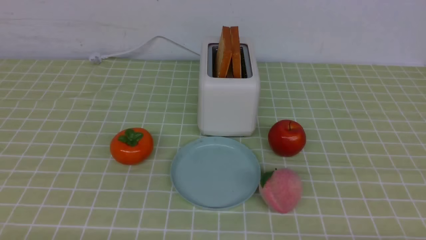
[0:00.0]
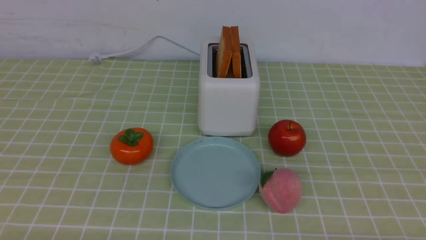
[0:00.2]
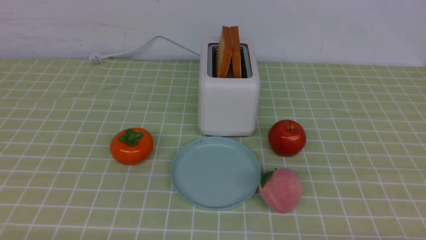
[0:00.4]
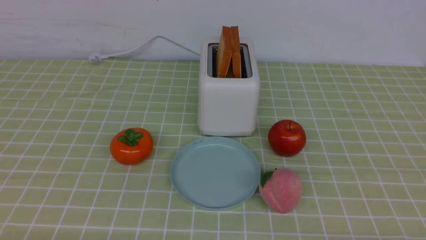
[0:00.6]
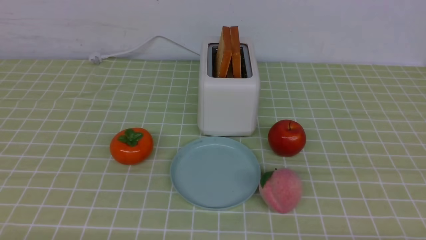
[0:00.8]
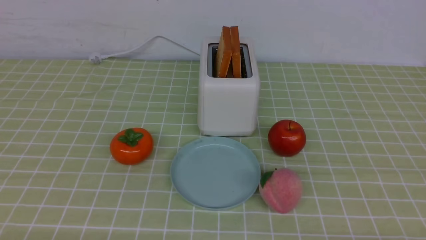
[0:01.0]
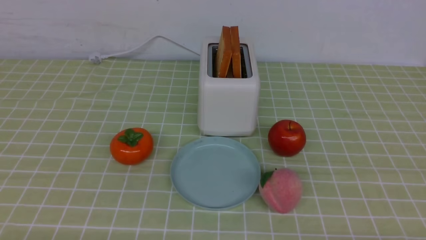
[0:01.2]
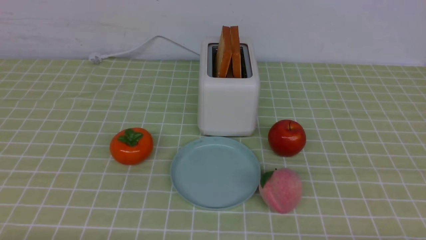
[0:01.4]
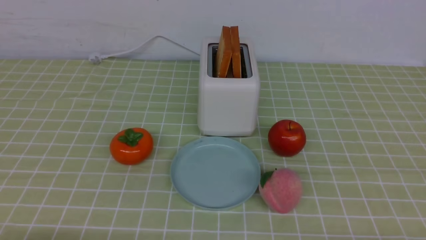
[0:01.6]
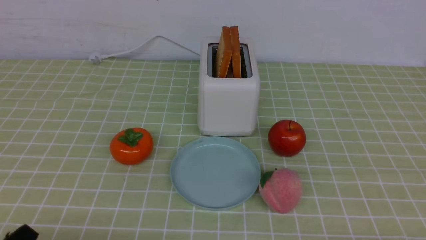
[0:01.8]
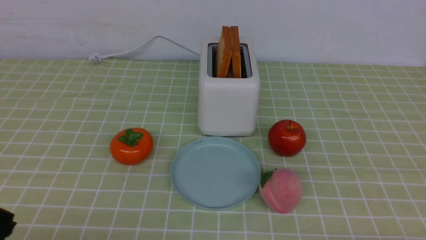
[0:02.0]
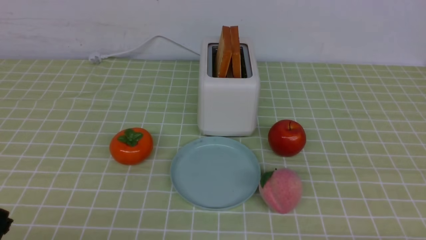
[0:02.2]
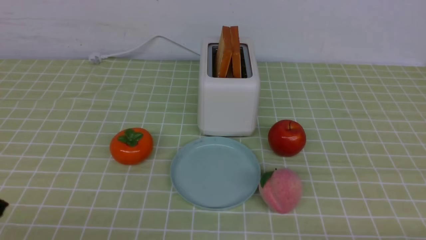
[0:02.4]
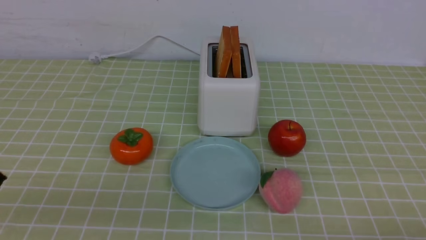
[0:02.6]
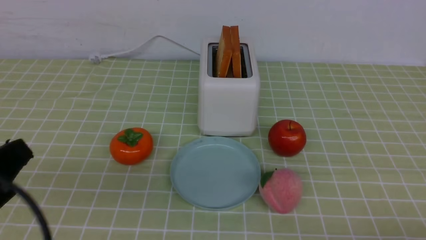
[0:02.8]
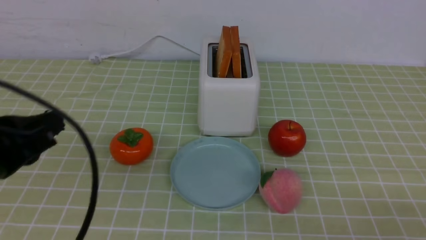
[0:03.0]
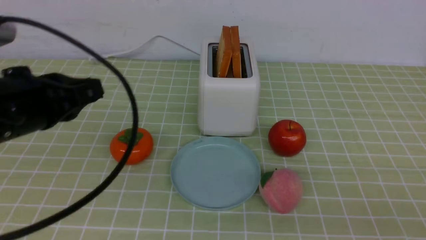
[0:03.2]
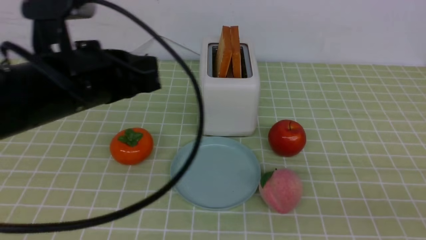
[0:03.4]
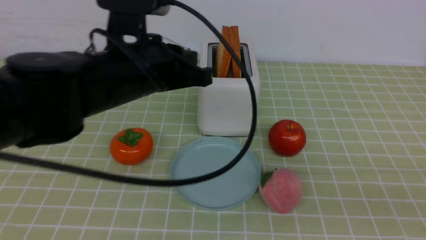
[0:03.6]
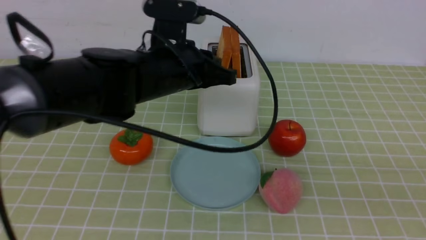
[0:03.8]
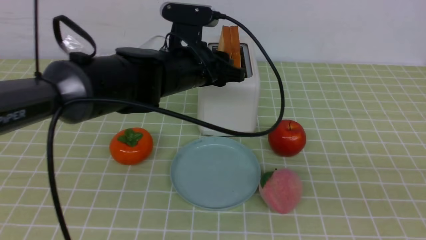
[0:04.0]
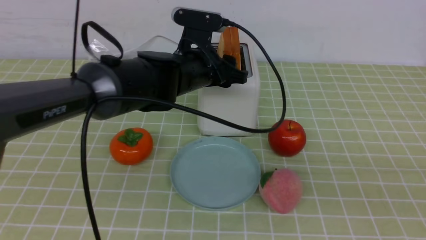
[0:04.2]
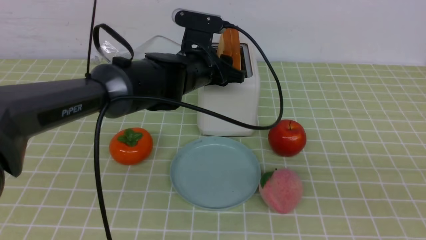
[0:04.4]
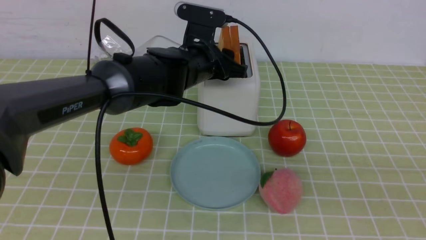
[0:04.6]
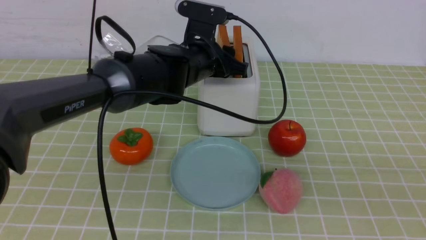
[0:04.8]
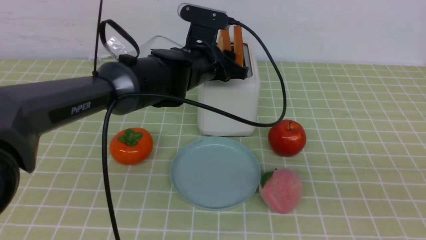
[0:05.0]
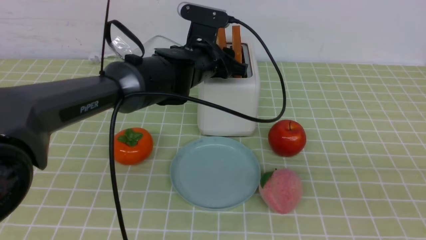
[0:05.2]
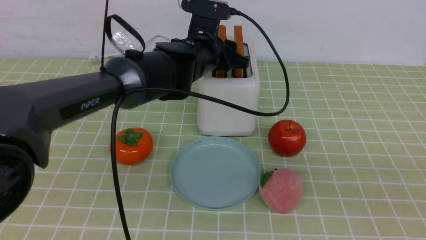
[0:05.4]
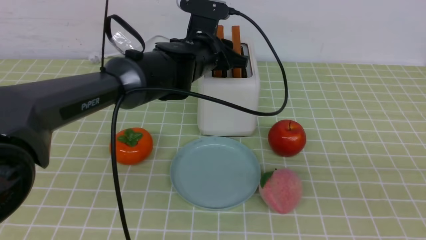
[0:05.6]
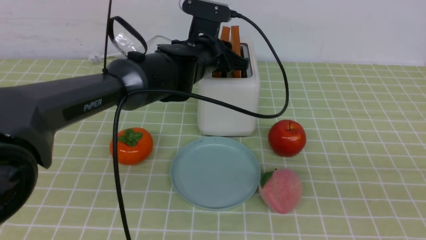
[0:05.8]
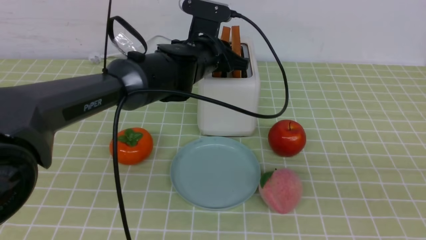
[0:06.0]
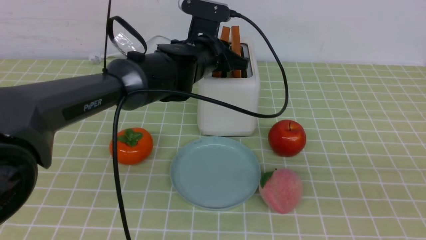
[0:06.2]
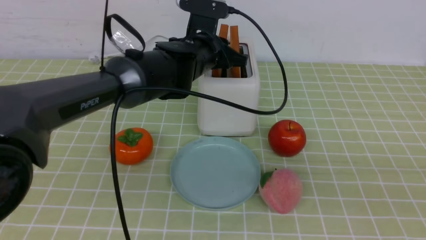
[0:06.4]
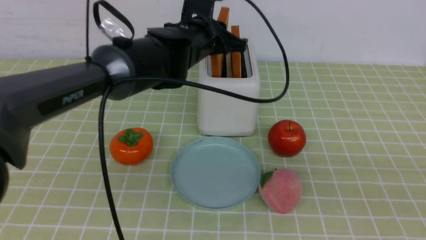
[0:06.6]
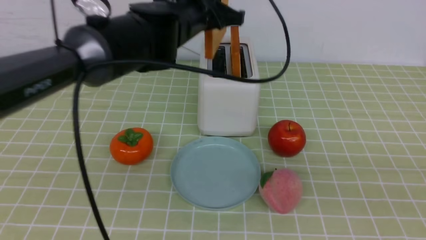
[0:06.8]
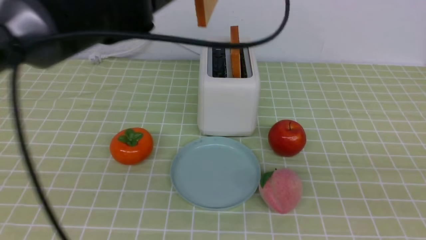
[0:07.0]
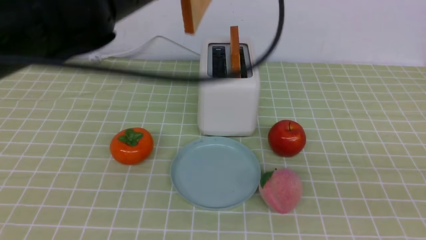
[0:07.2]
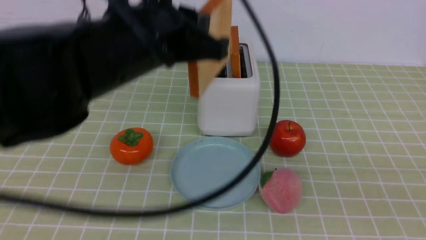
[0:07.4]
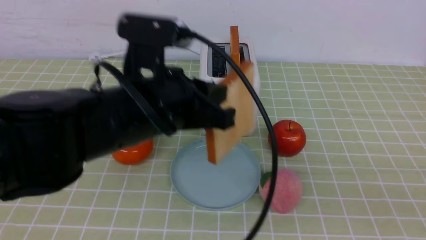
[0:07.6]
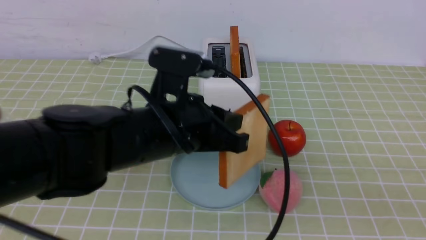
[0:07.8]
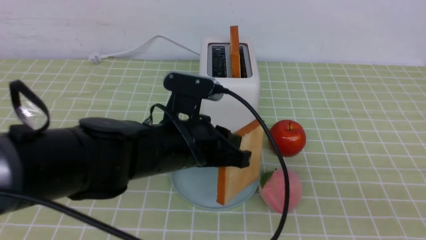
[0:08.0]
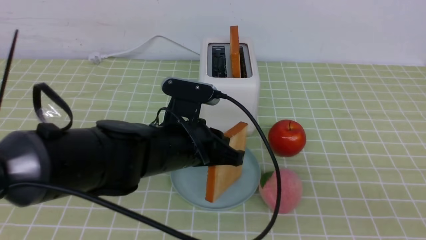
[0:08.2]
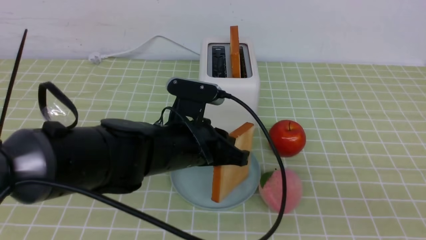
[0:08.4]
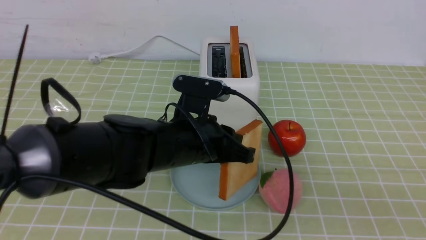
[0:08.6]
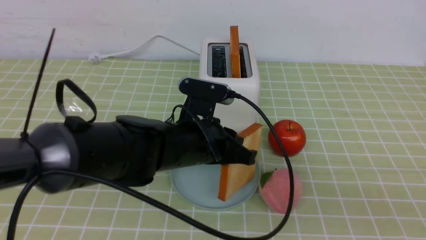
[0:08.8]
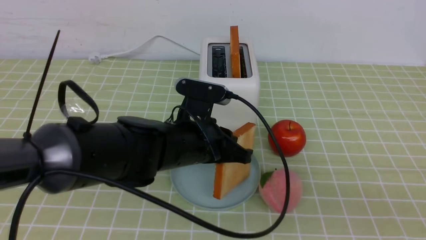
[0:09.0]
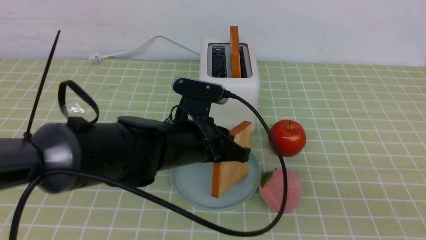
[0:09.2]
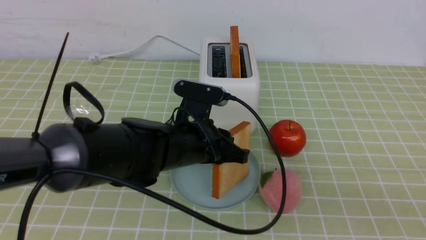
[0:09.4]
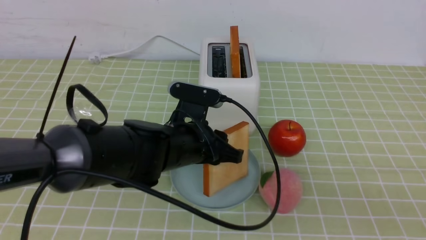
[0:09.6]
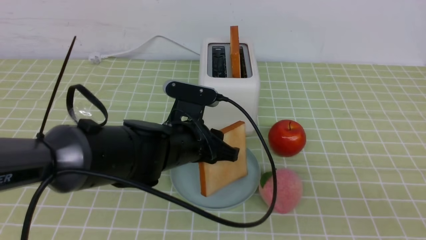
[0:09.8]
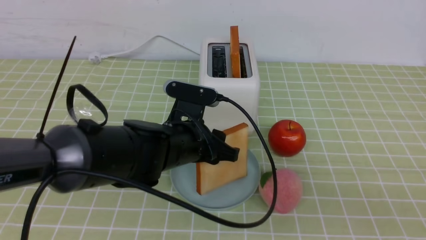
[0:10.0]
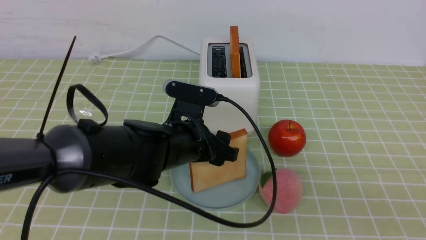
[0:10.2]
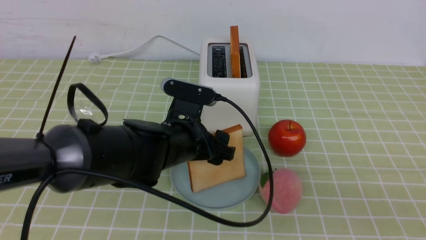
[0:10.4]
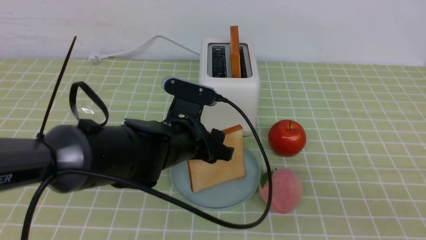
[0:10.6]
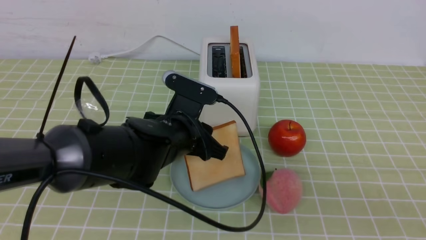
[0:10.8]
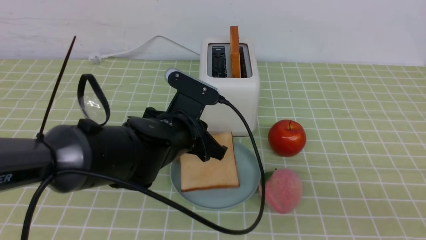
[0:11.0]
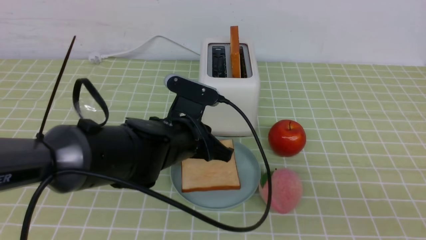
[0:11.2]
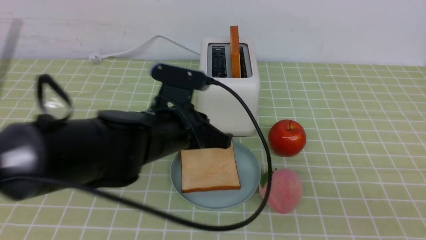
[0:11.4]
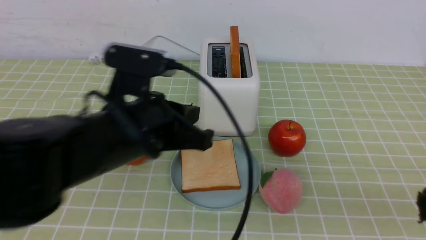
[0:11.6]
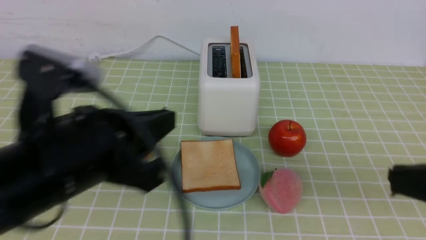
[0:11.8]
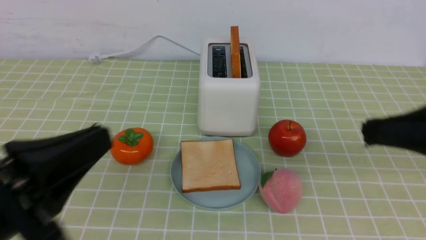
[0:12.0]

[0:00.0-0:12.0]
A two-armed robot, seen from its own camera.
Task of the whole recording: take toasted bread from bread machine on green coffee tablecloth place on plate.
Step, 0:00.0 to 0:07.0: use the left arm to take out a slice of bread.
Step, 0:07.2 to 0:11.6: use the left arm to put a slice of bread into the empty plate.
0:01.6 to 0:03.0: The left gripper shifts approximately 20 cm upward and forward, and closes its fingers.
0:03.0 to 0:04.4: The right gripper moves upward, about 10 cm; the left gripper goes roughly 30 cm forward and to the right, and opens up.
0:04.4 to 0:06.0: The left gripper closes its fingers.
0:06.0 to 0:07.6: The left gripper shifts roughly 20 cm backward.
0:07.6 to 0:09.0: The left gripper travels downward by approximately 10 cm.
0:09.0 to 0:10.4: The left gripper opens its fingers.
0:10.4 to 0:12.0: The right gripper goes roughly 15 cm forward. The left gripper shifts about 25 cm backward, to the left and upward, and closes its fingers.

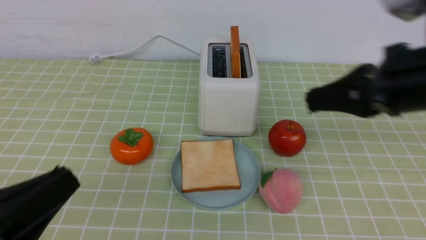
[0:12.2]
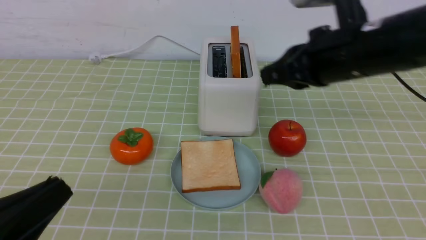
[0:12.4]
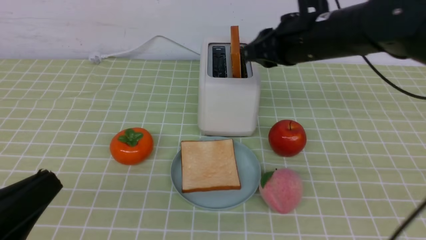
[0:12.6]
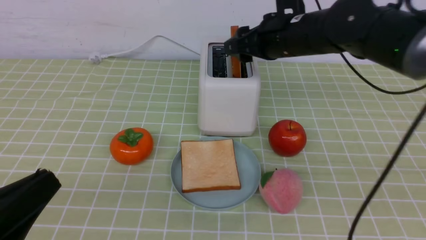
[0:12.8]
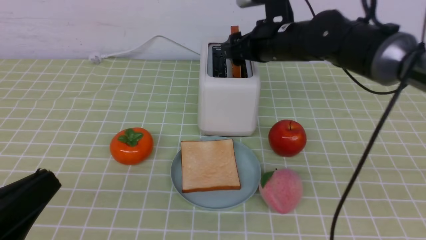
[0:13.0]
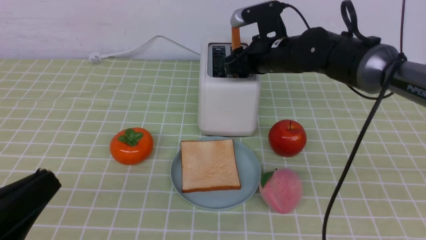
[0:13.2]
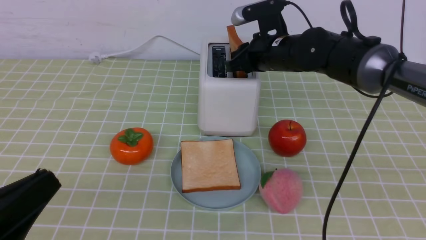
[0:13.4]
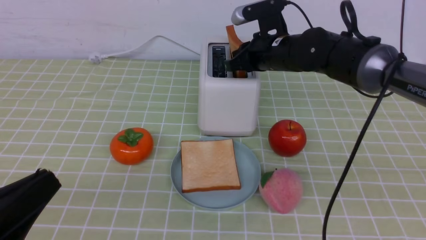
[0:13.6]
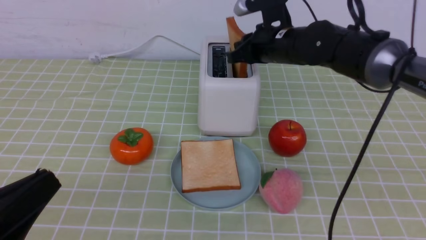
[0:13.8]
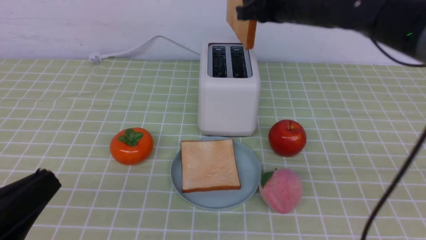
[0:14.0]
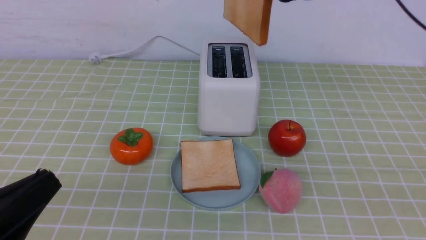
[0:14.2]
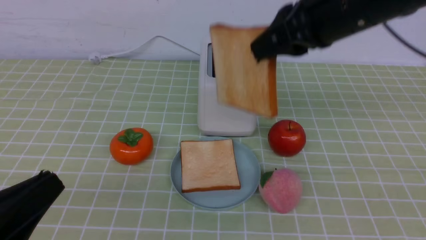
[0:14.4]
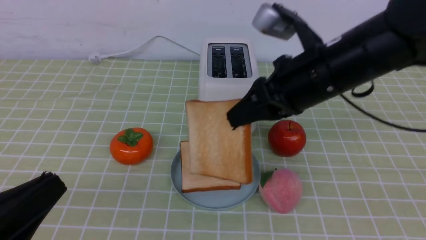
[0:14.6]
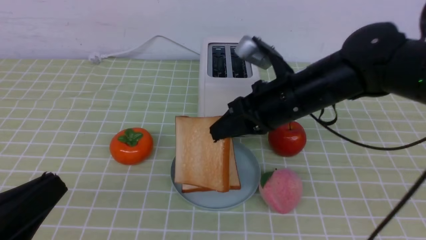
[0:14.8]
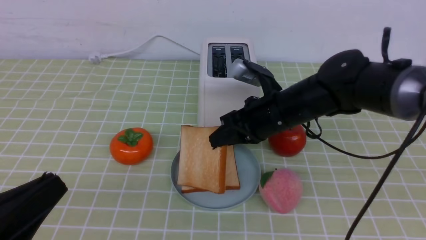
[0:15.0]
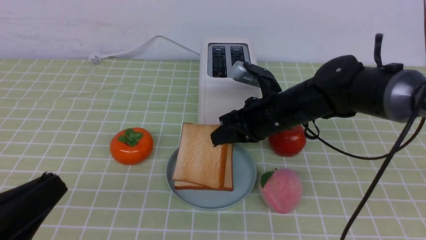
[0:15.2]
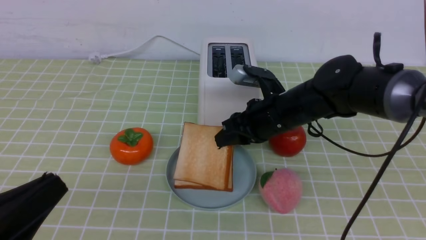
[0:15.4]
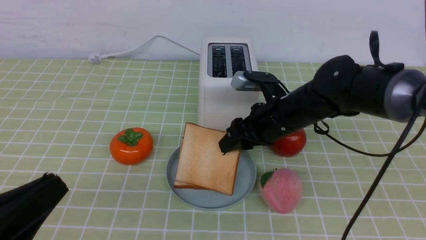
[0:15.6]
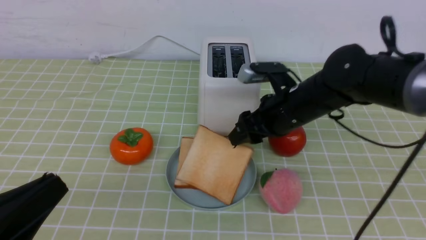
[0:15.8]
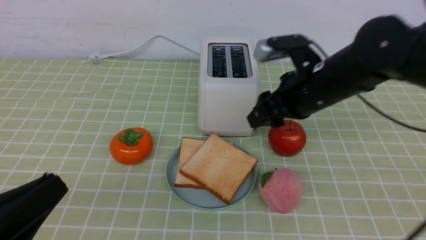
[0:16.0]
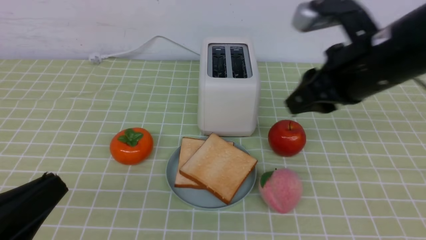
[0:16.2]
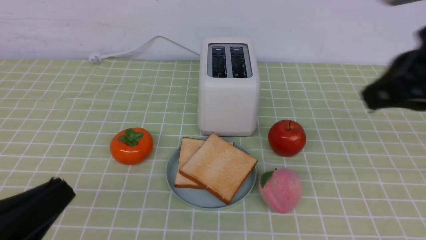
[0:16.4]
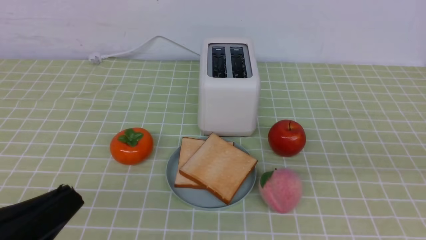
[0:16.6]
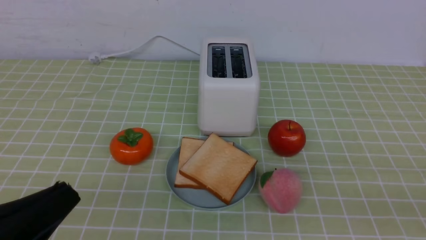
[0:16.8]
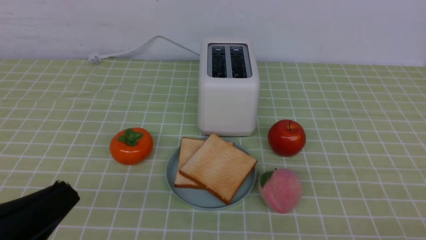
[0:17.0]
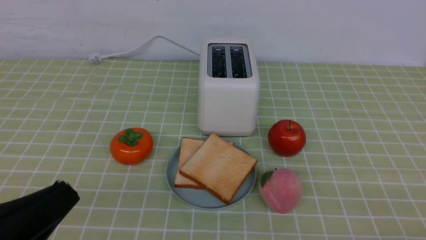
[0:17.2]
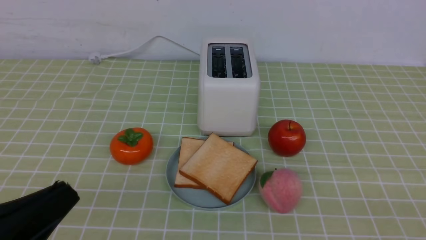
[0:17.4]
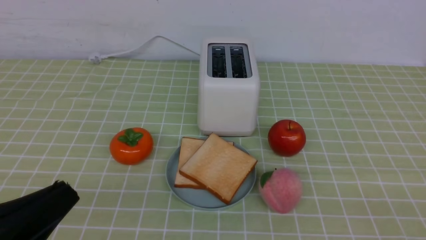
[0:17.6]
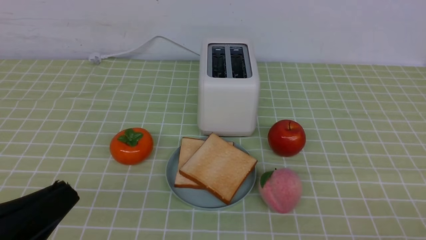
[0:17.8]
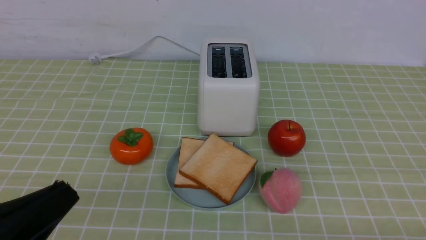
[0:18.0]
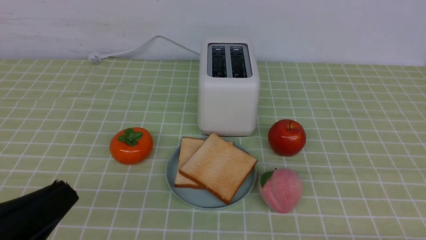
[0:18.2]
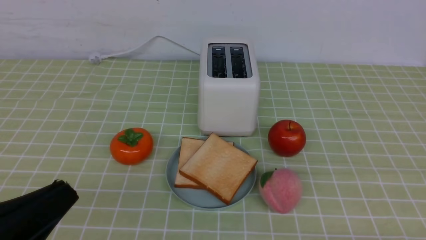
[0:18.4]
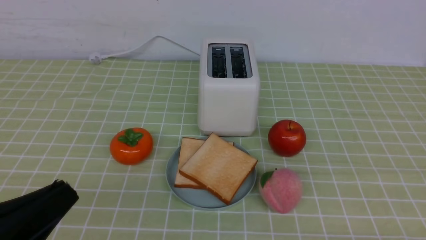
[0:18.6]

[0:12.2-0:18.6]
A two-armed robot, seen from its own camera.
Task of the whole recording: take toasted bread from bread machine on green coffee tablecloth place on plate.
Step, 0:12.2 to 0:13.8: use the right arm to take out a slice of bread.
Step, 0:14.0 to 0:16.4: use the right arm to put a slice of bread into the plate.
0:12.2 to 0:13.8: The right gripper is displaced forward and to the left by roughly 20 cm, and opens, then closes once more.
0:13.8 to 0:15.4: The right gripper travels downward and backward by roughly 10 cm.
0:15.4 to 0:17.0: The right gripper shifts roughly 40 cm backward and to the right, and closes its fingers.
